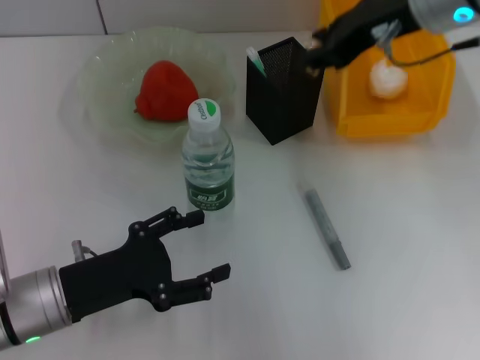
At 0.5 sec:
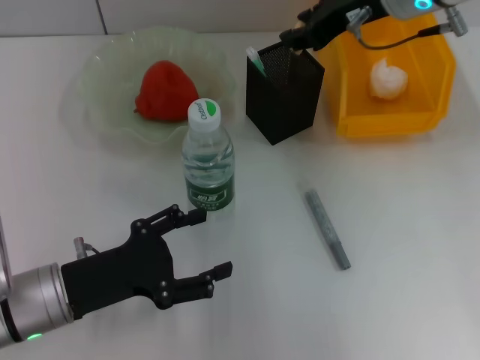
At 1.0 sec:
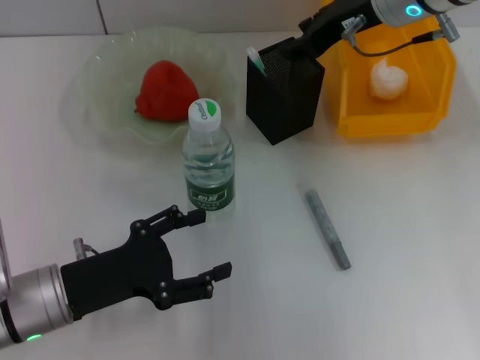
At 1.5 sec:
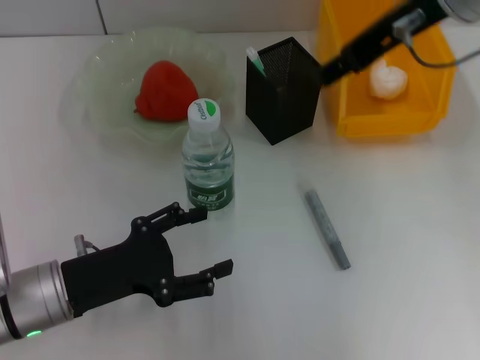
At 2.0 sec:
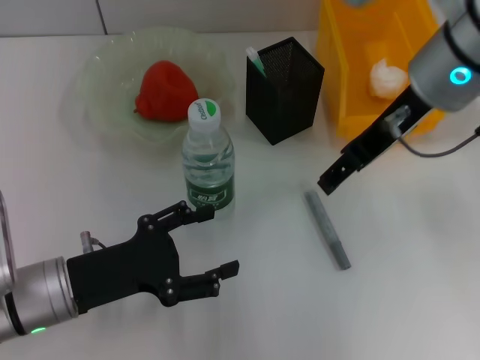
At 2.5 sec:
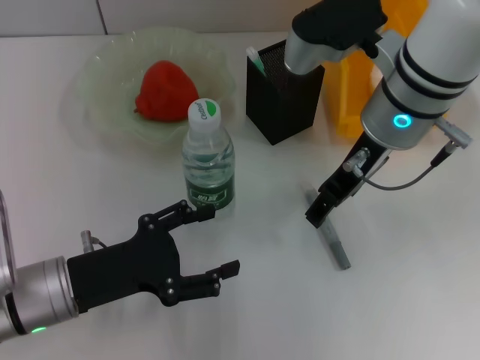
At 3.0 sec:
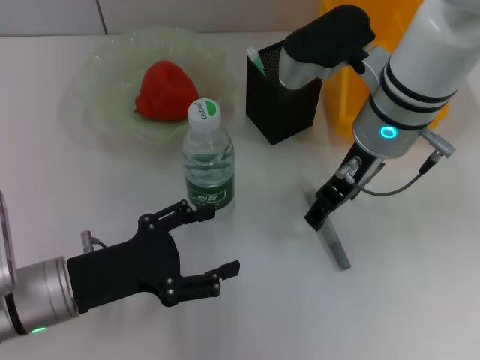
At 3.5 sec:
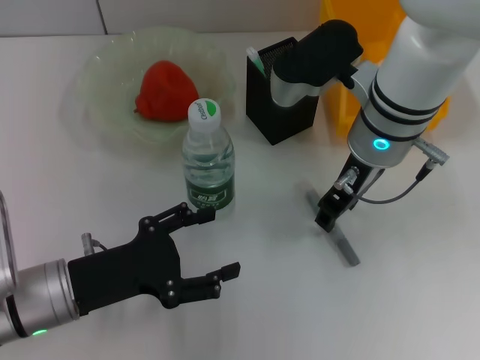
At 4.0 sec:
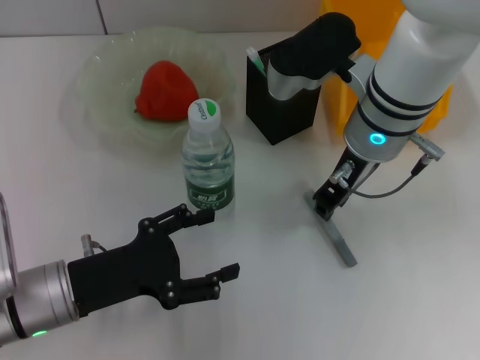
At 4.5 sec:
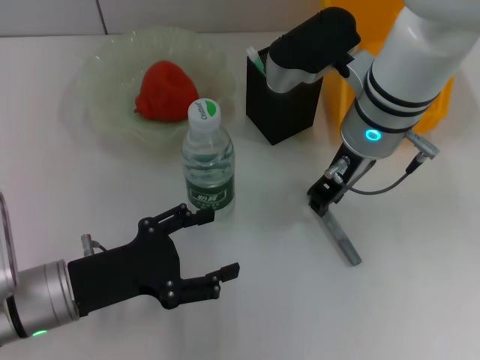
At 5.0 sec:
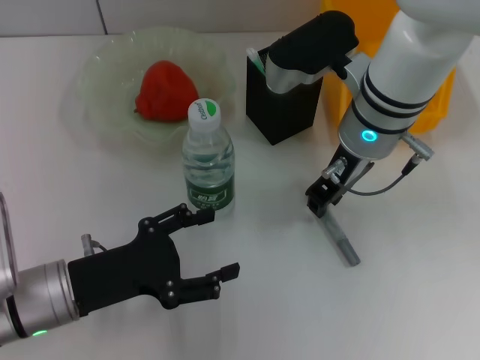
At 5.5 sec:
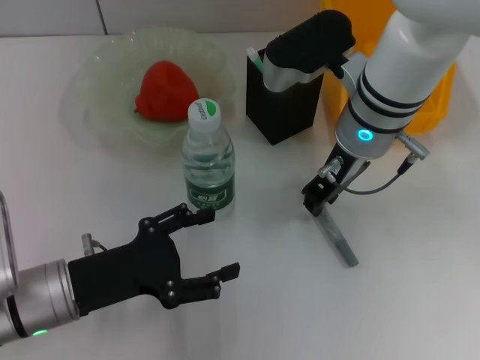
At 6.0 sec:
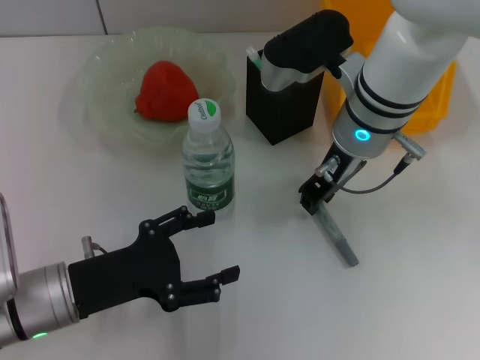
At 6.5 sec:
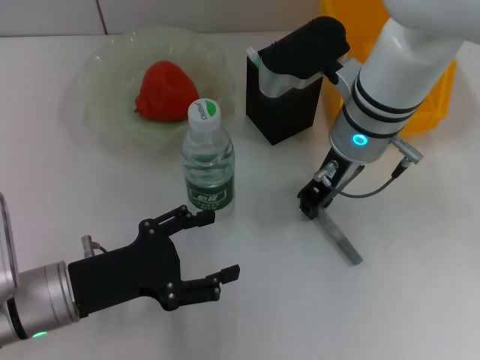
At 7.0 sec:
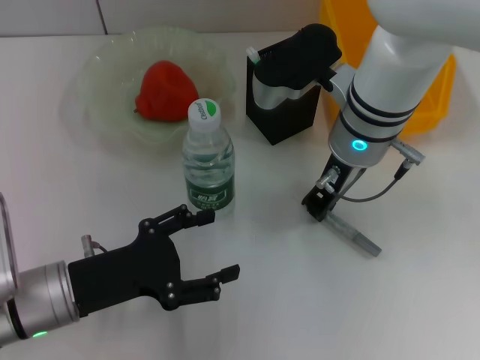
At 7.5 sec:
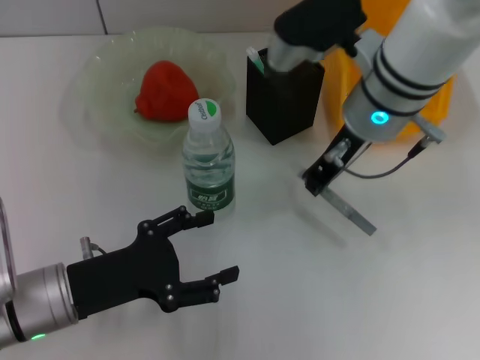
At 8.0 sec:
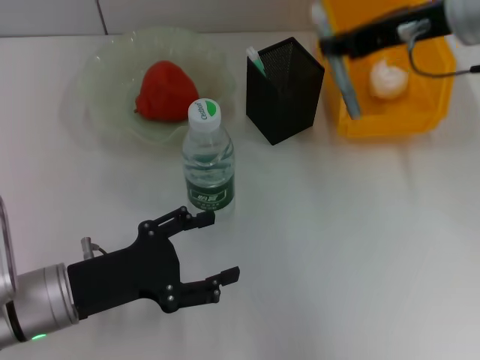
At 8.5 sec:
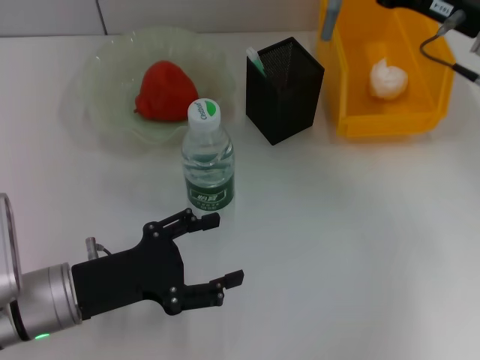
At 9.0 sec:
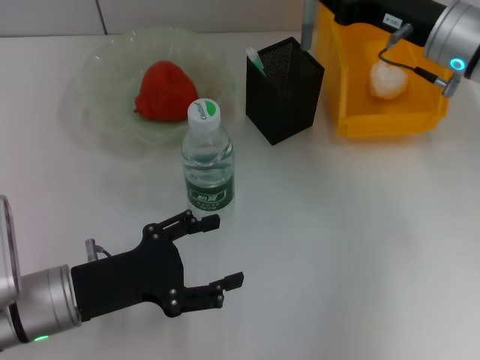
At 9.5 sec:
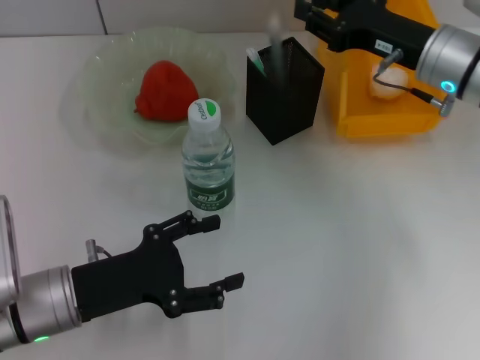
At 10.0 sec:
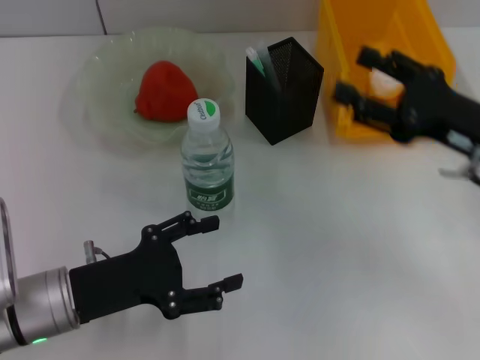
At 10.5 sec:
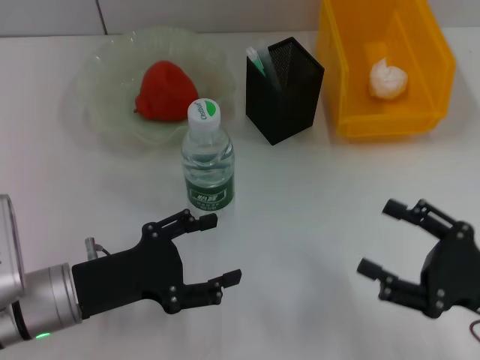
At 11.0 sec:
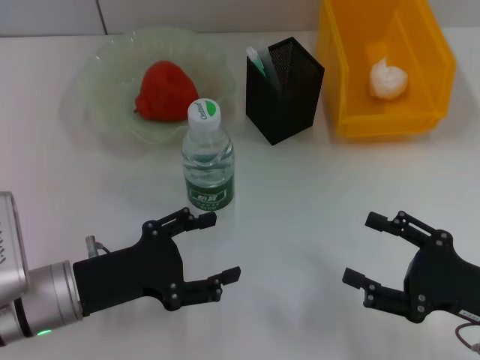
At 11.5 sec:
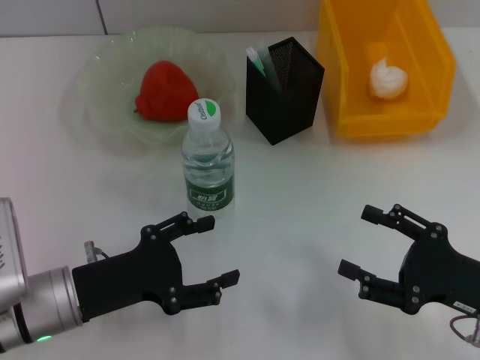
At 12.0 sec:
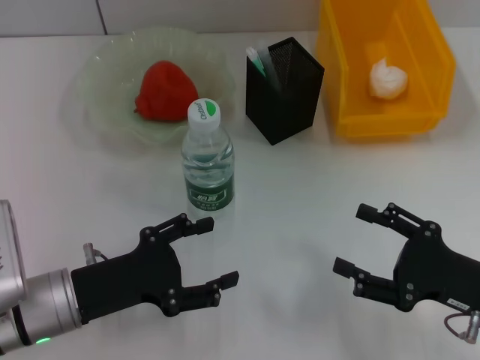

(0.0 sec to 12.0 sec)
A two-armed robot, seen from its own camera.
Step, 1.0 sec - 6.5 sec: Grab the gray glue with the right hand.
Step, 7.0 sec - 9.5 sec: Place the gray glue into the pen holder with the right hand.
0.0 sec - 2.0 sec: The right gripper opens up.
2.0 sec - 4.0 sec: The right gripper heads downward, covering about 10 cm, and closes.
4.0 sec - 6.0 sec: Neither gripper changes place.
6.0 sec - 8.0 sec: The right gripper moves to the right and upward, some 15 cm.
8.0 sec - 10.0 sec: The right gripper shifts about 20 cm downward, backward and to the right, and opens its fingers.
10.0 sec - 12.0 sec: The right gripper shifts approximately 10 cm backward and downward.
